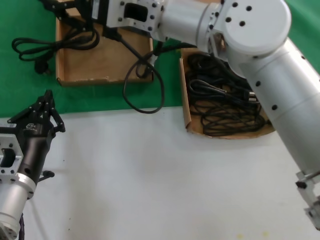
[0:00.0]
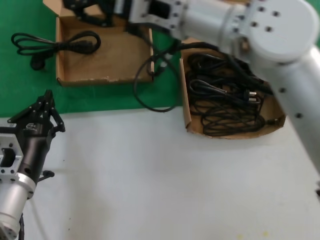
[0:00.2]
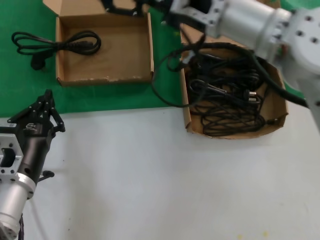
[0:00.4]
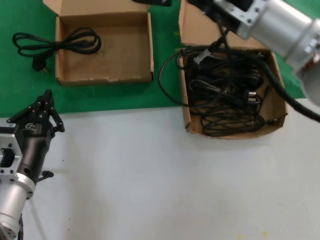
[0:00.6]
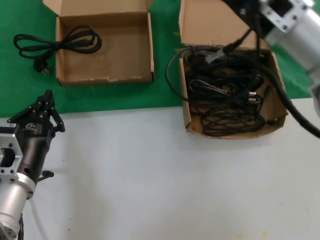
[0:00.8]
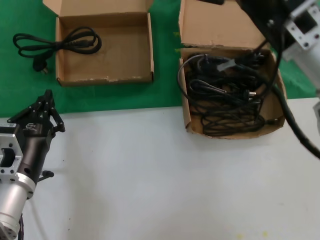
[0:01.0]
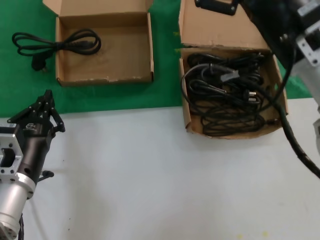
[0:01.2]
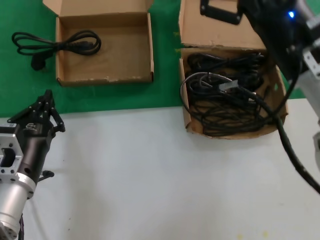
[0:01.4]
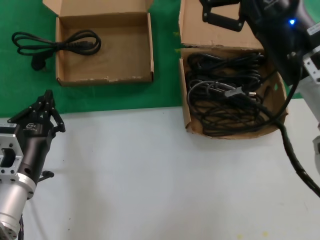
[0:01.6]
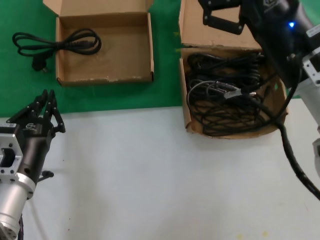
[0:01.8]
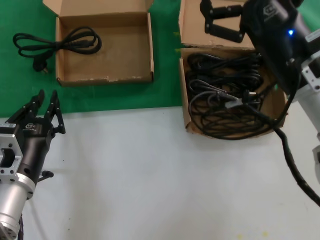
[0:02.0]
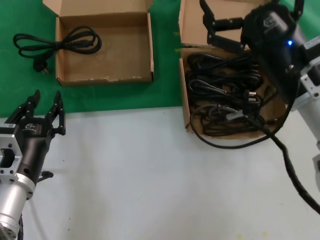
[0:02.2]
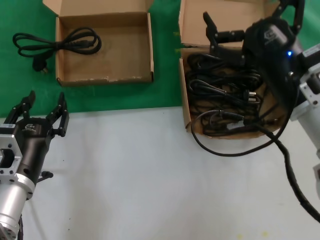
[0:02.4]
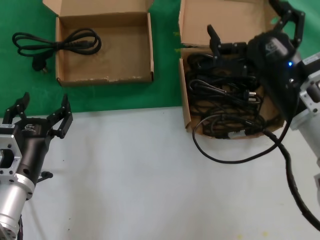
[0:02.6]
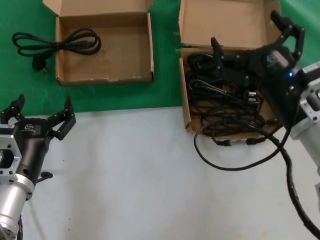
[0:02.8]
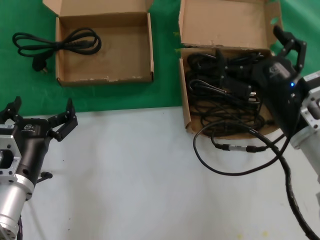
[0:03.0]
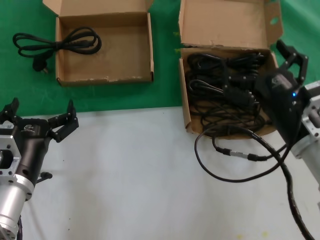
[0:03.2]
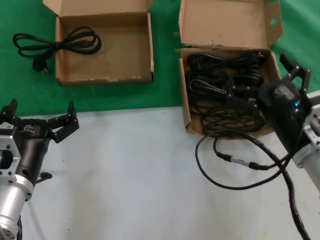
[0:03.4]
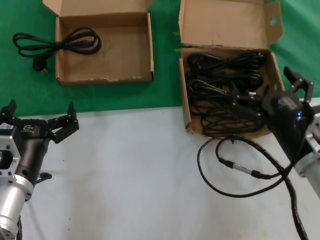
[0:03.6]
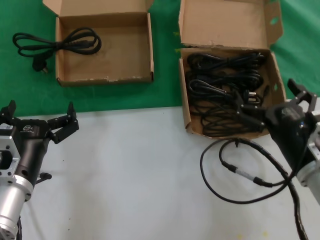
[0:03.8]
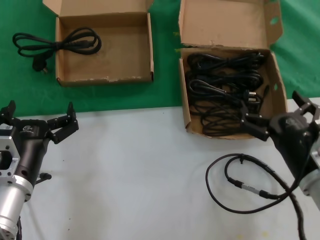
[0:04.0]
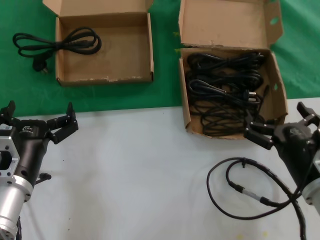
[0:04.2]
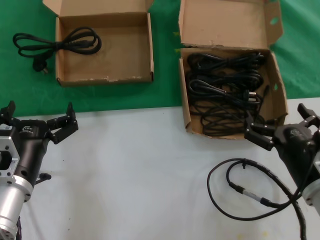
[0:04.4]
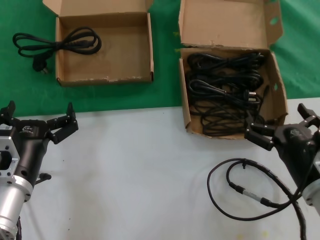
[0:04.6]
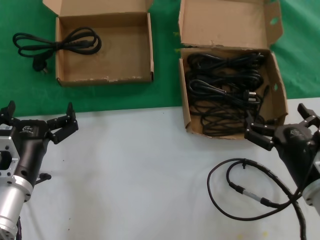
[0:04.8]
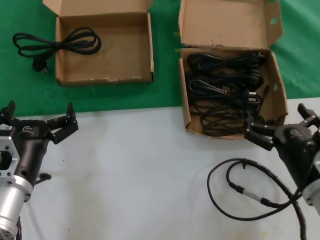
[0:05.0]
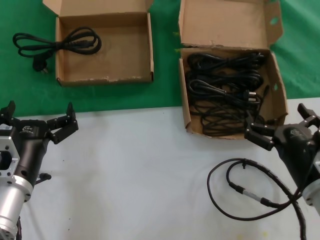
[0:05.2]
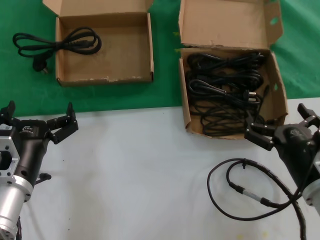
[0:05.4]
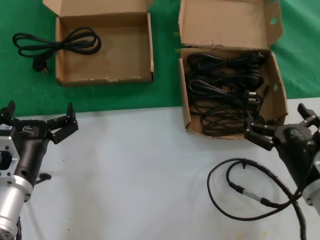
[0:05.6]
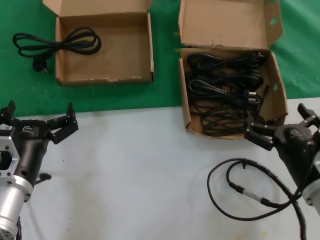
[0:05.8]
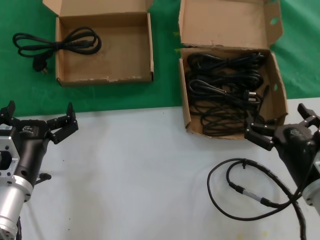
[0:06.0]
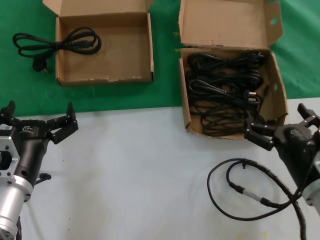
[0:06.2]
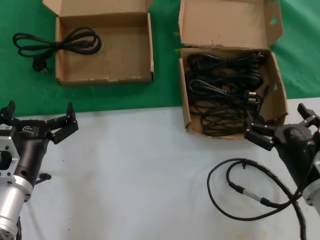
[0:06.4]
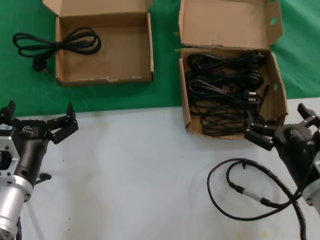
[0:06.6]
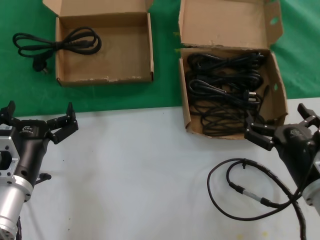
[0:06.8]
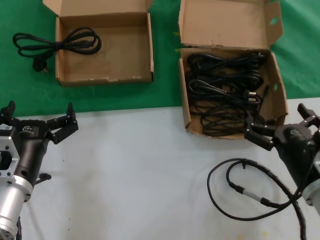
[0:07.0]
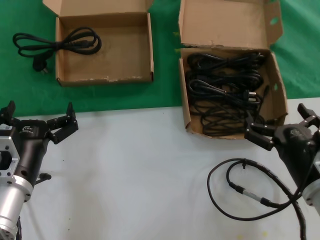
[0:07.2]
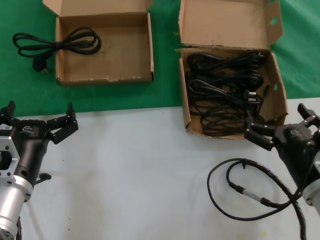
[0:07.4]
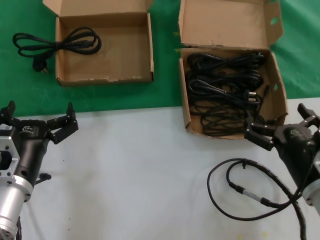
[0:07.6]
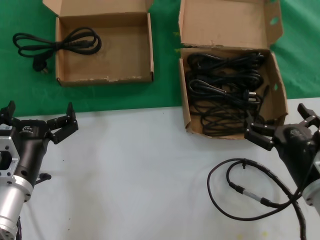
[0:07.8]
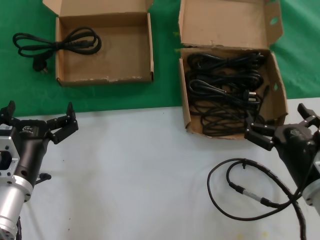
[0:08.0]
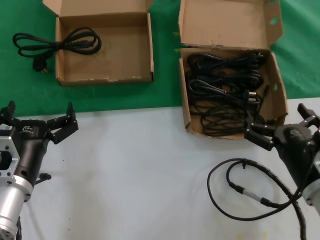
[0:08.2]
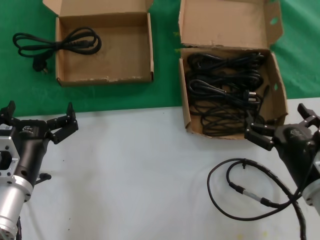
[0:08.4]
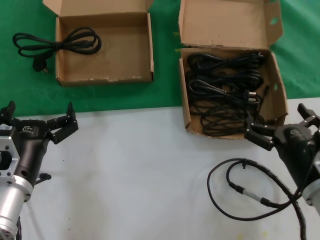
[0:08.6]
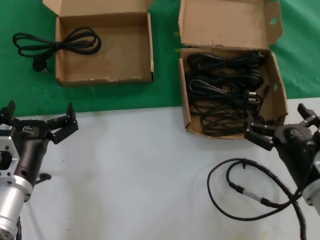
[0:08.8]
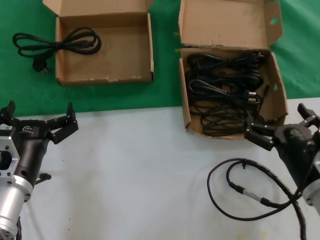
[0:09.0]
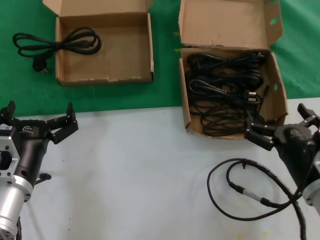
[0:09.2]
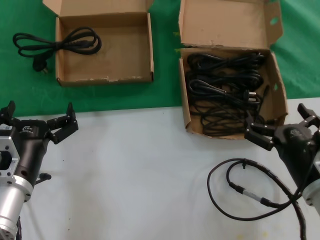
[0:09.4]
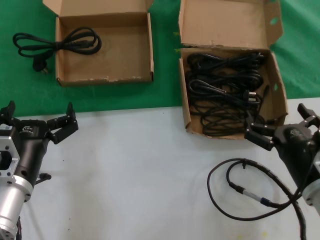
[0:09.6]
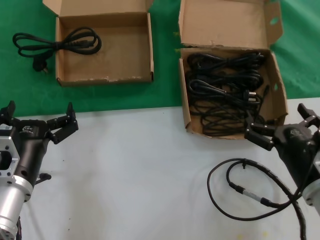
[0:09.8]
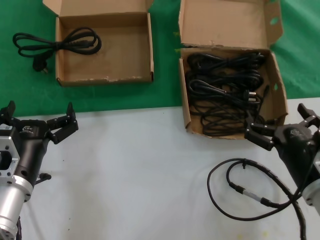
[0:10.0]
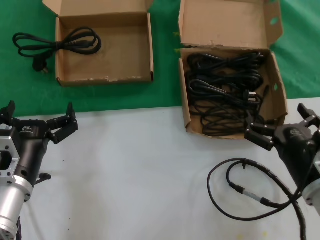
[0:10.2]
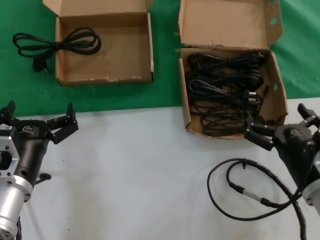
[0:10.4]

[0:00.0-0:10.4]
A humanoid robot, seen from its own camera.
Task of the whole recording: take the parts from the box containing them and put them into an empty box.
0:00.0 to 0:01.4: The right hand travels to the right, downward and backward by some 20 cm.
0:01.4 to 0:03.0: The right hand travels downward by roughly 10 cm.
0:03.0 to 0:04.4: The right hand shifts roughly 10 cm downward and backward.
0:04.4 to 0:10.4: Neither hand changes place.

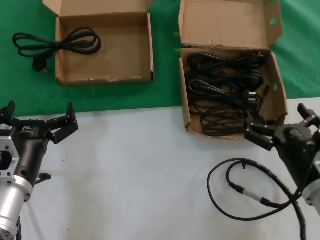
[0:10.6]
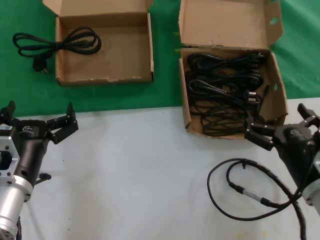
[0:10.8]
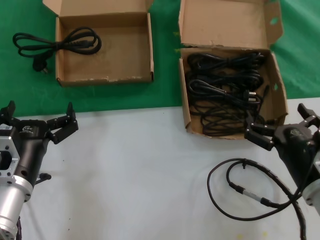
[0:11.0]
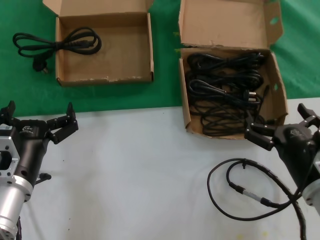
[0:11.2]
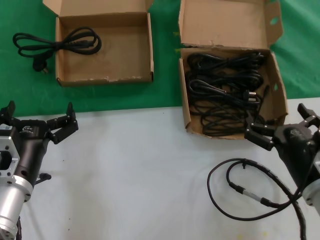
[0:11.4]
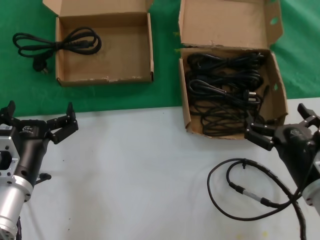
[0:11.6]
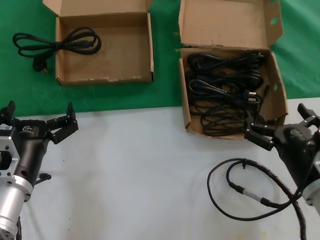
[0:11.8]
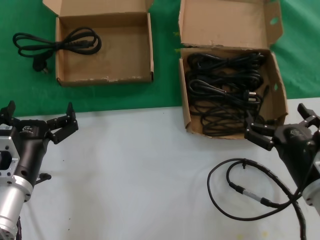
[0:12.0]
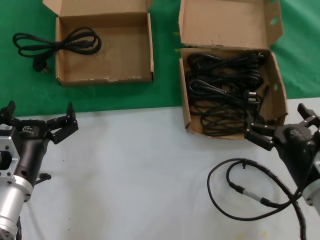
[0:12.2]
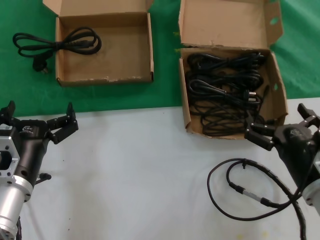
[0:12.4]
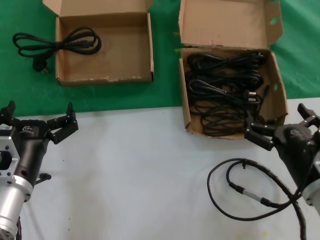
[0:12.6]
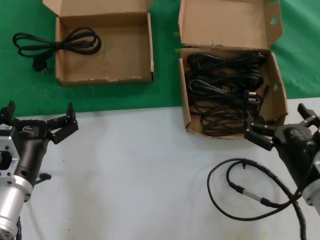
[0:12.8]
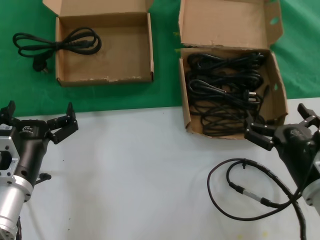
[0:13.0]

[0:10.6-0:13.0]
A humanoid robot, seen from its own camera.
Task of the whole recording: take the parts from the box containing them and put them into an empty box.
0:10.6 to 0:13.0: Both hands stay about where they are.
